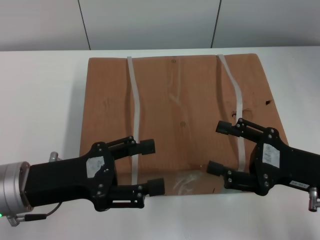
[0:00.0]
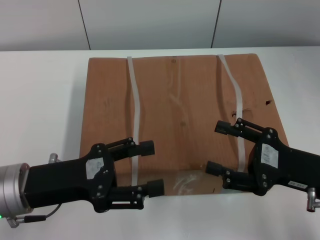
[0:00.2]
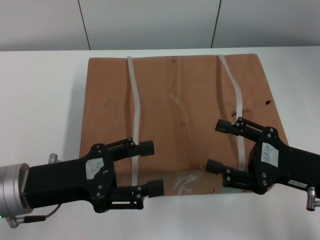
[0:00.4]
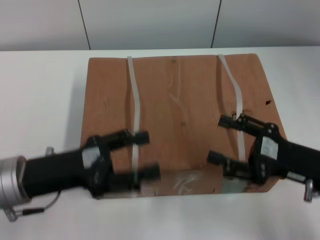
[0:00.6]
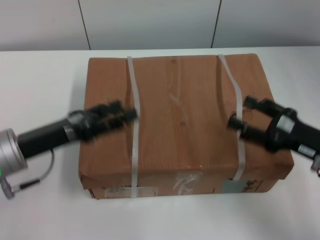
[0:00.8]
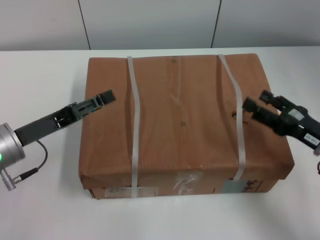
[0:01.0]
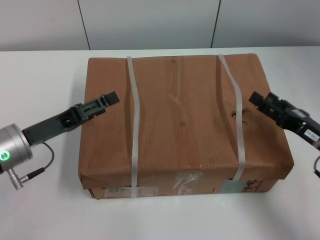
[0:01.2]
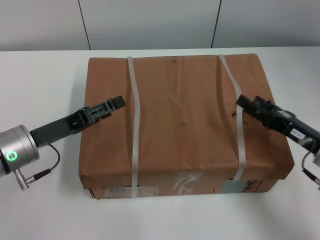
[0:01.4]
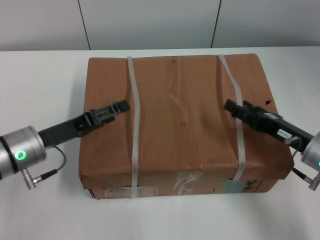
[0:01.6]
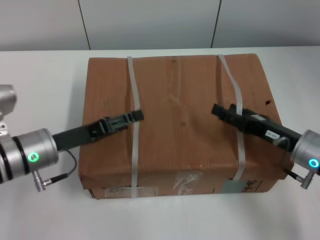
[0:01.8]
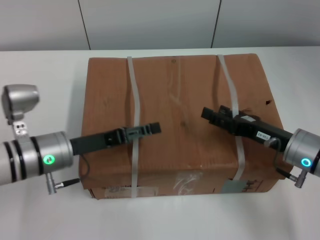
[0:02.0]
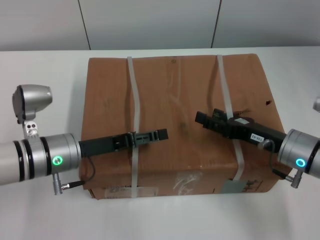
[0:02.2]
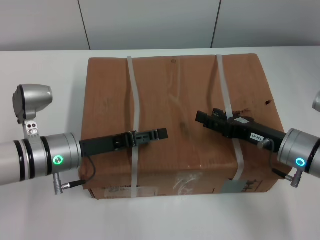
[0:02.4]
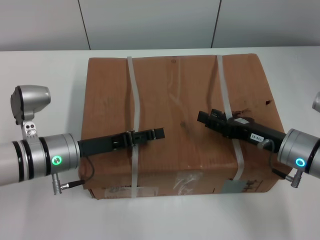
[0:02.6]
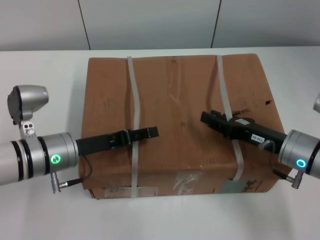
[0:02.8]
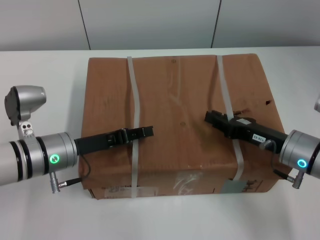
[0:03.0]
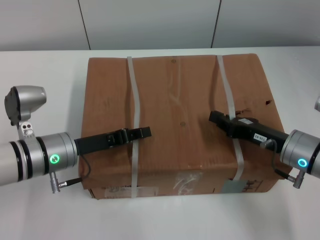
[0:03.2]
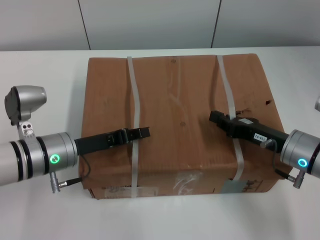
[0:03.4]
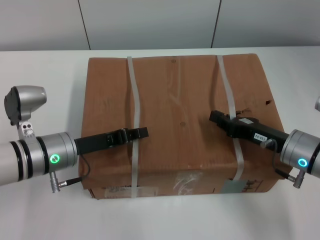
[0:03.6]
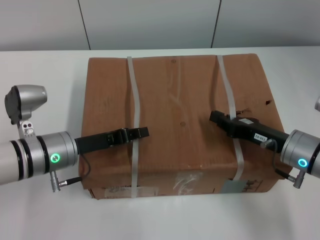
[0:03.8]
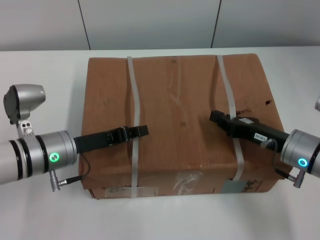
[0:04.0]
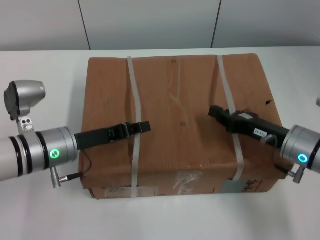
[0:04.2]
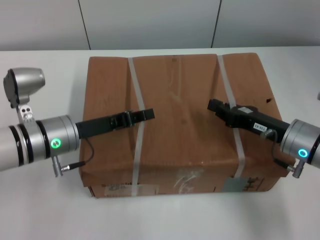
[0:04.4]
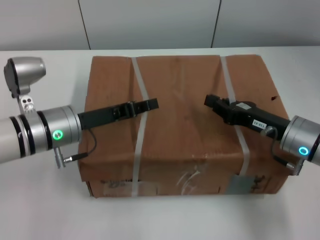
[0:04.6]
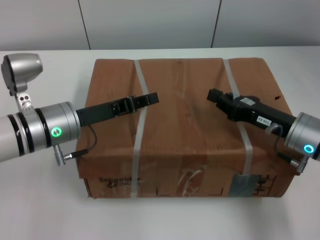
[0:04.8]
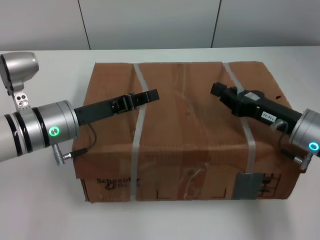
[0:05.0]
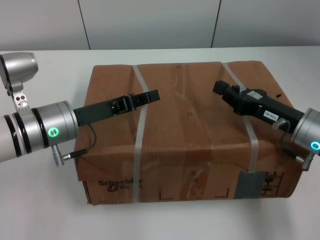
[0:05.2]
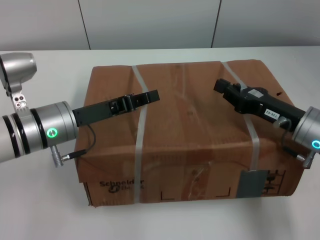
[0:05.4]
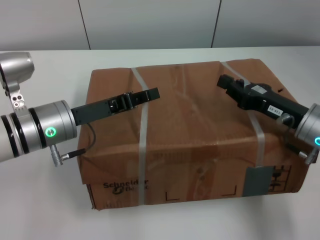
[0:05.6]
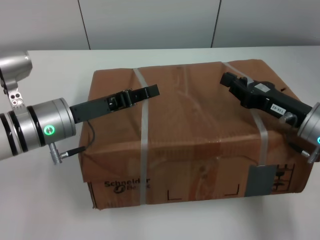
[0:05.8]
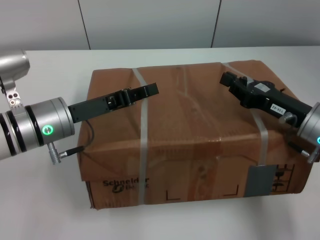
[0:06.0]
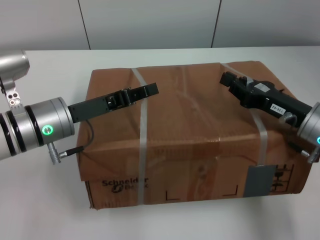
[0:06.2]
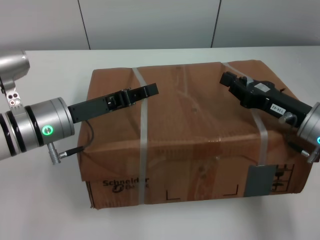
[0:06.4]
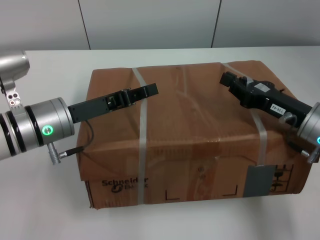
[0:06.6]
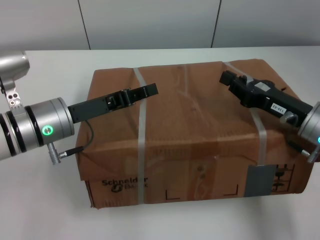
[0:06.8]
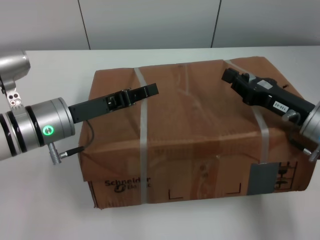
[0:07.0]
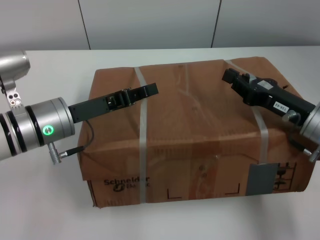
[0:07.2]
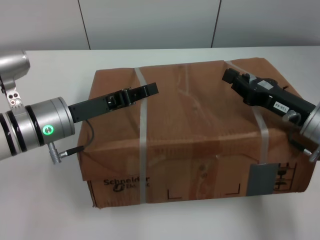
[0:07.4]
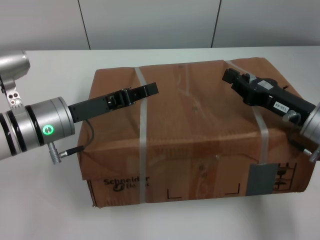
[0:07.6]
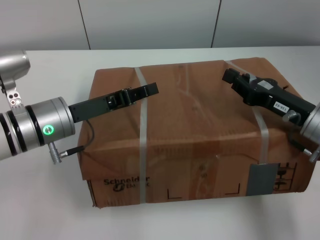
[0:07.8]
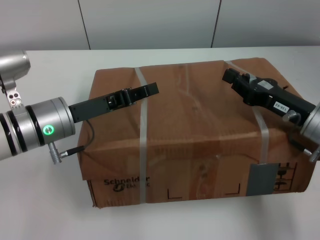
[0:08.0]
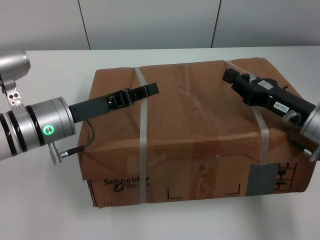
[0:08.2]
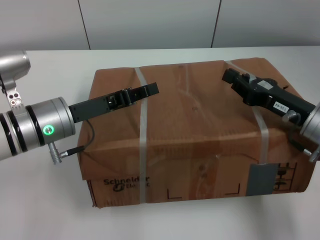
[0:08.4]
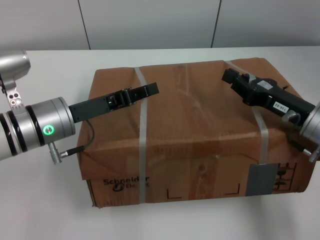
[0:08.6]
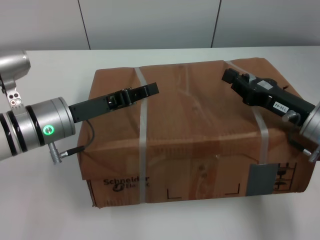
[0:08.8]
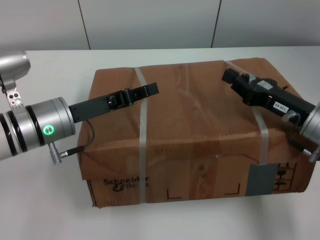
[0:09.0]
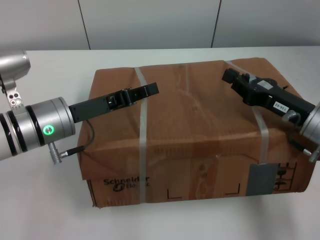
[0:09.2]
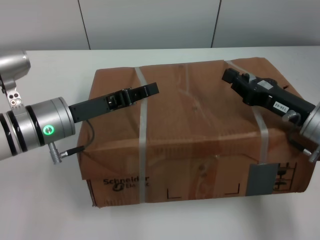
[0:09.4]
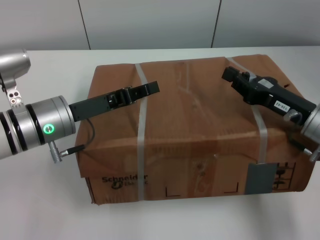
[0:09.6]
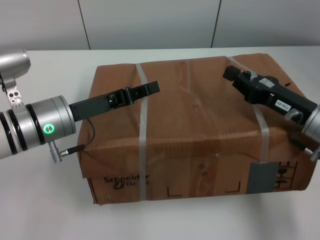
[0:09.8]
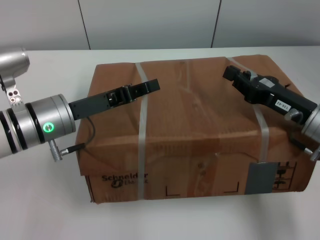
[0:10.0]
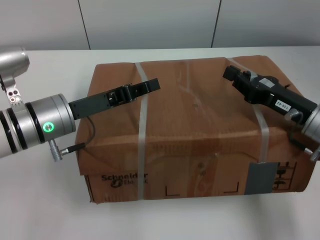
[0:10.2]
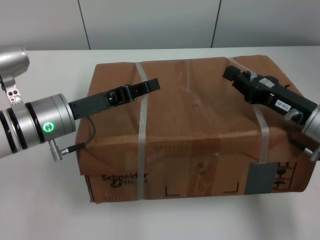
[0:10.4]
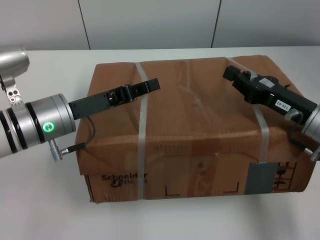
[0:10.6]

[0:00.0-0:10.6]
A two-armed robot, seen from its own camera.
Task of the whole recording: pick up the box from the table with both arms.
Step, 0:00.0 to 0:03.2: Grasp the bandage with left gripper.
Step, 0:00.0 to 0:03.2: Grasp the bandage with right gripper.
Step, 0:03.4 to 0:06.0: Lift the box with left gripper.
Step, 0:03.4 to 0:06.0: Lift the box with right gripper.
0:00.0 to 0:01.6: The left gripper heads forward and downward, covering approximately 10 cm, while the right gripper is displaced downward and forward by roughly 10 cm.
0:01.6 to 0:03.0: The right gripper closes its fingers.
0:03.0 to 0:04.6: The left gripper closes. The right gripper closes up.
0:06.0 to 0:10.6: Neither gripper changes place.
